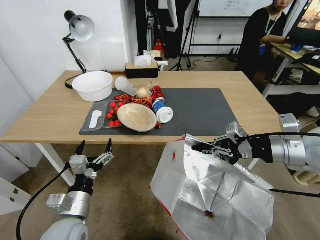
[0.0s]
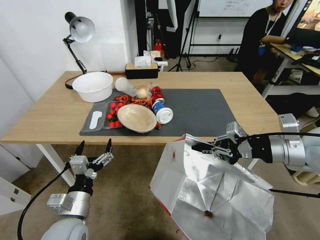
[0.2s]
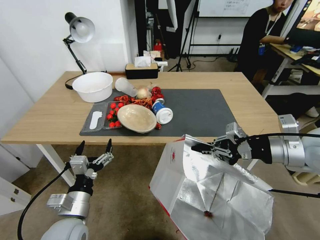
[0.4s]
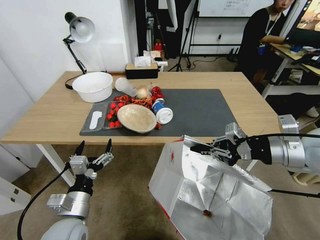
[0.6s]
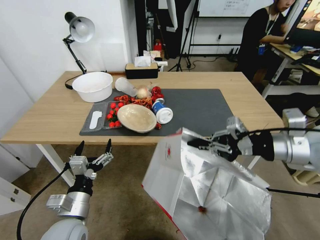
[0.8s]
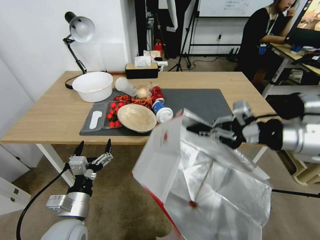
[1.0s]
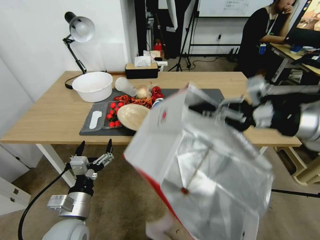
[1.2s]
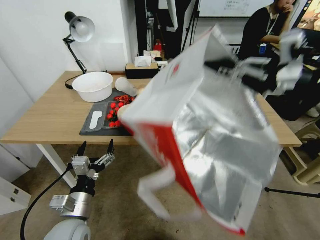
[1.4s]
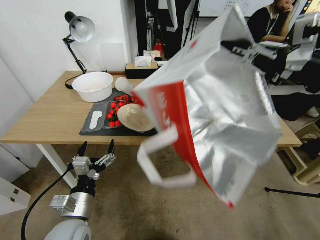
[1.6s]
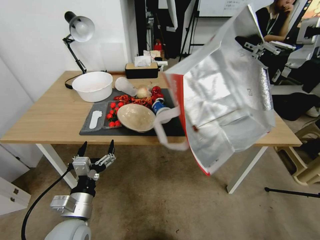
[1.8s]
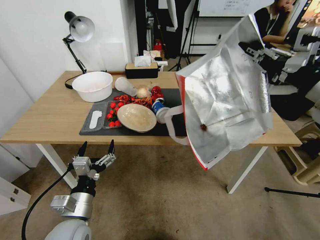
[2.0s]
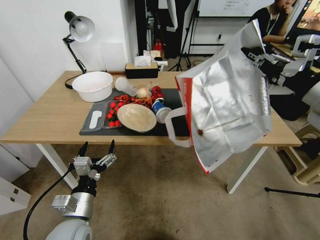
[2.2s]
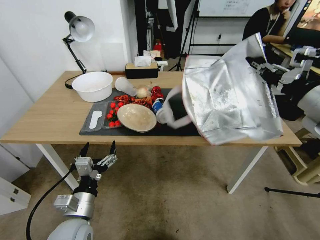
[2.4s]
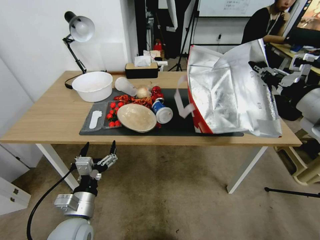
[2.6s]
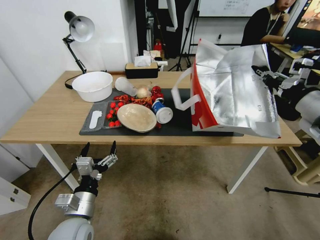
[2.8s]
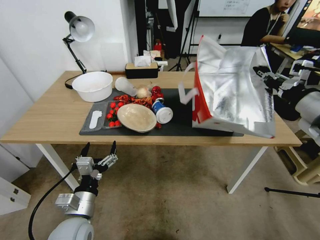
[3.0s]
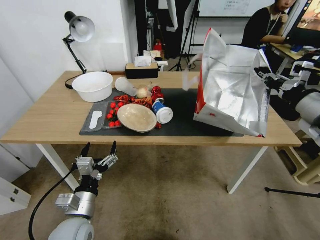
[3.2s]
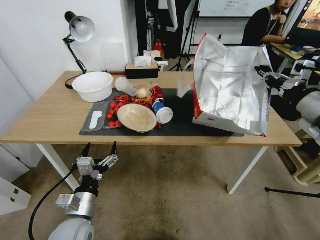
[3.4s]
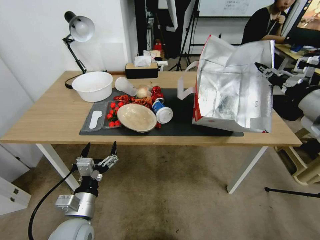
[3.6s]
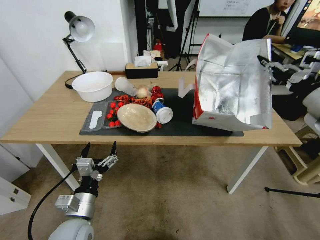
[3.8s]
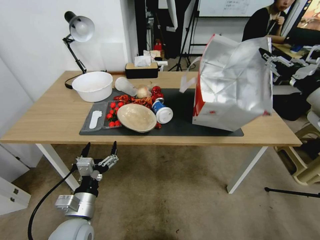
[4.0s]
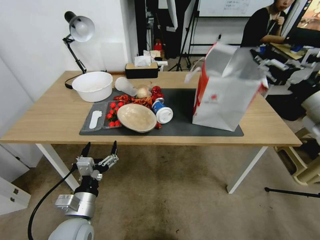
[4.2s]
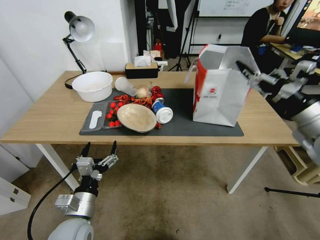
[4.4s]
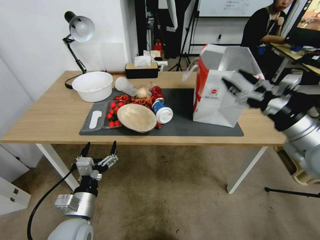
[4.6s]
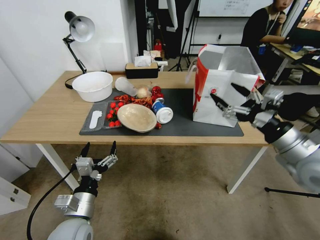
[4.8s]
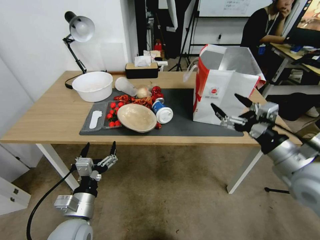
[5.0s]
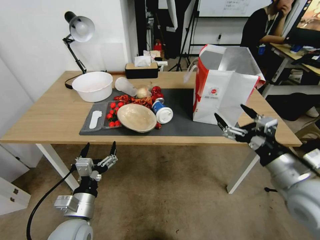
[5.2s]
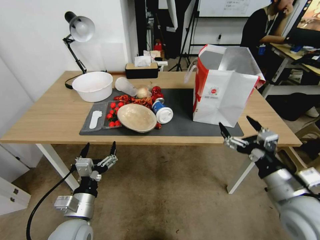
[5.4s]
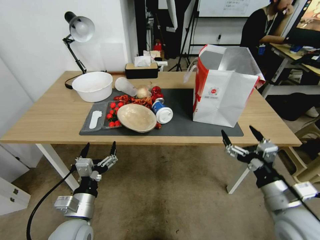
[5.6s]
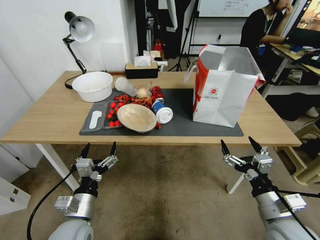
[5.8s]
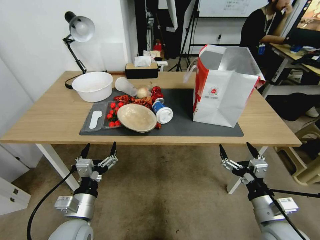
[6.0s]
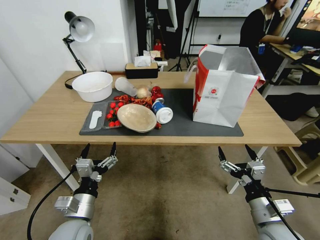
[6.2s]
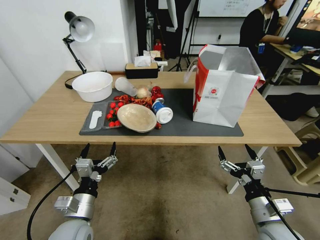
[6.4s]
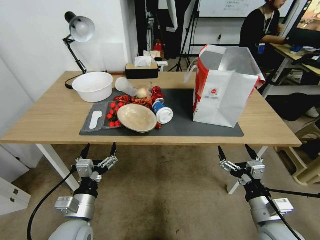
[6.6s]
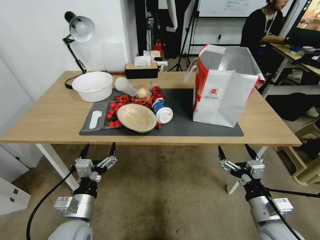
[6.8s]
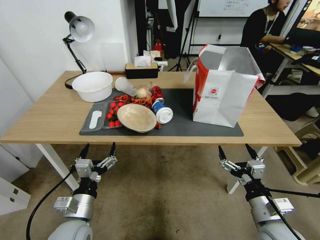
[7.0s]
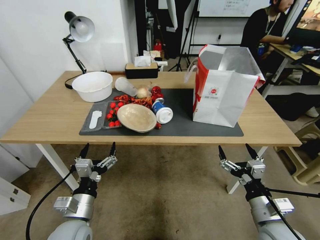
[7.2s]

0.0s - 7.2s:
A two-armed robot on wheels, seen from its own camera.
Task of the whole recording: Pick up the food delivery bag from the floor and place it on the table.
0.0s - 1.4s: The right gripper shifts some 15 cm upward.
1.4s - 2.8s: The right gripper is displaced downward by roughly 10 cm.
2.8s - 4.4s: The right gripper opens its fingers.
4.4s - 5.8s: The right gripper is displaced downward, backward and to the left by some 20 cm.
5.8s - 7.2s: The right gripper heads downward, covering roughly 10 cm.

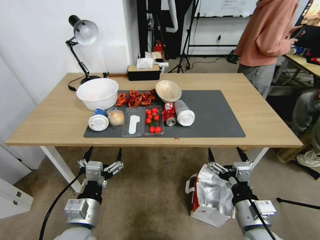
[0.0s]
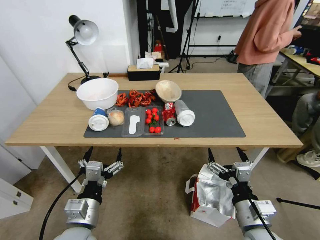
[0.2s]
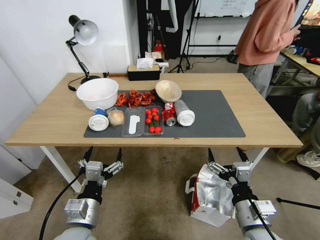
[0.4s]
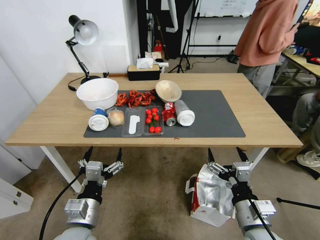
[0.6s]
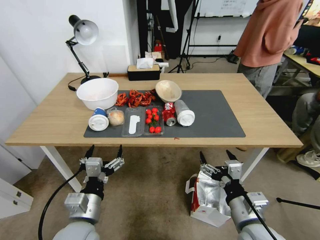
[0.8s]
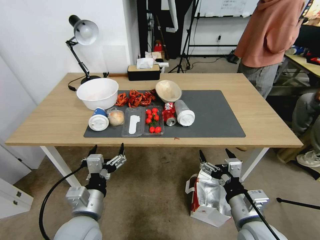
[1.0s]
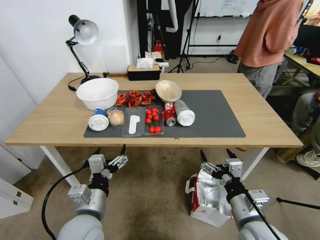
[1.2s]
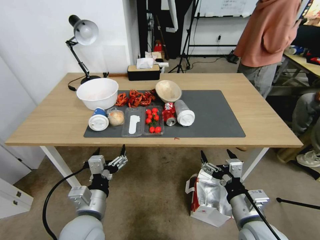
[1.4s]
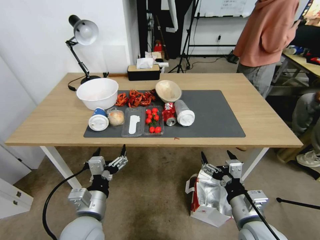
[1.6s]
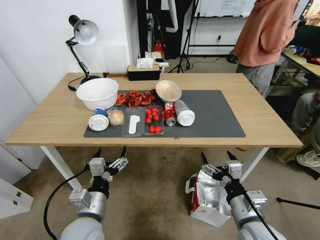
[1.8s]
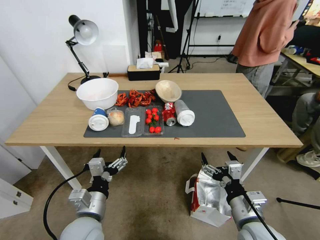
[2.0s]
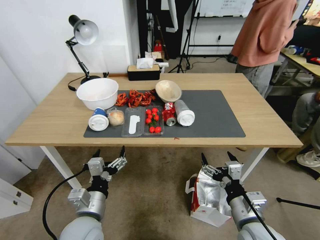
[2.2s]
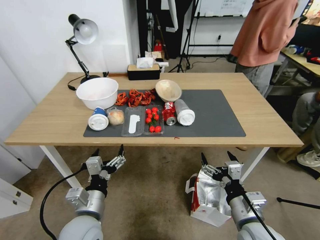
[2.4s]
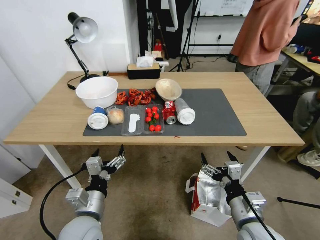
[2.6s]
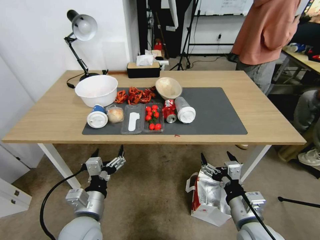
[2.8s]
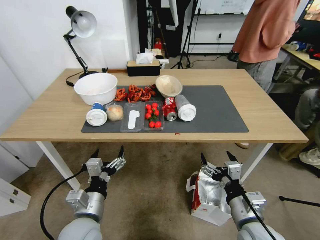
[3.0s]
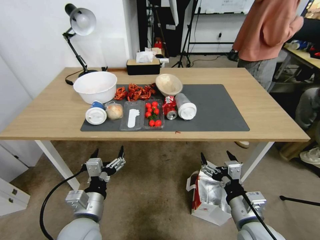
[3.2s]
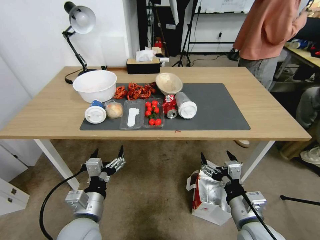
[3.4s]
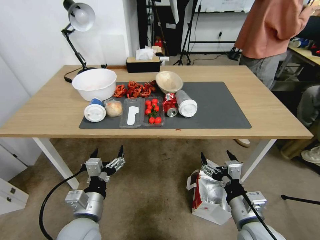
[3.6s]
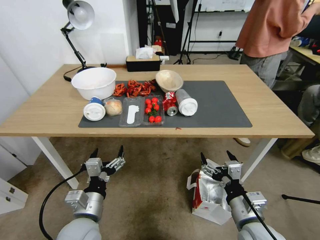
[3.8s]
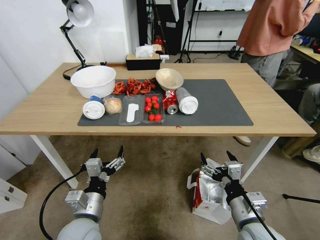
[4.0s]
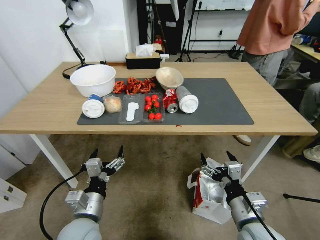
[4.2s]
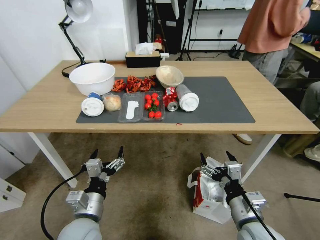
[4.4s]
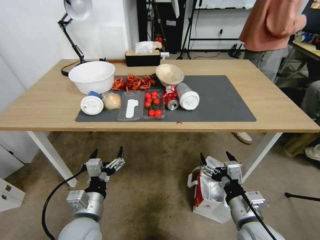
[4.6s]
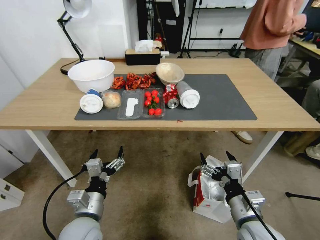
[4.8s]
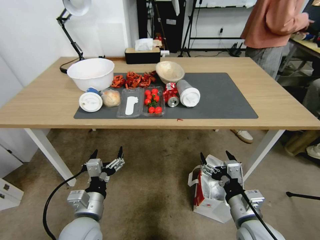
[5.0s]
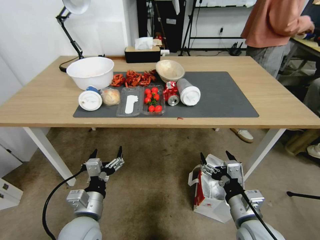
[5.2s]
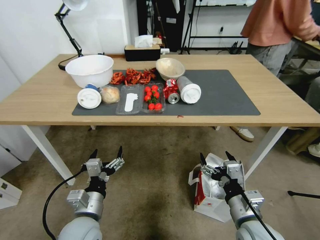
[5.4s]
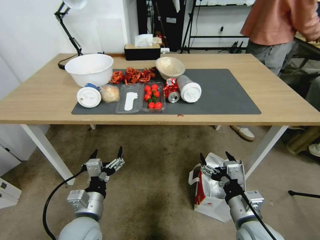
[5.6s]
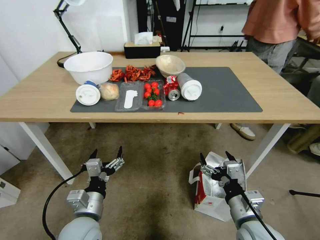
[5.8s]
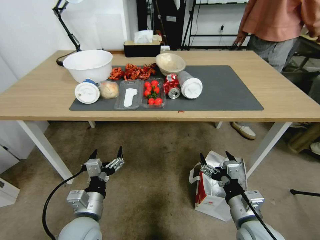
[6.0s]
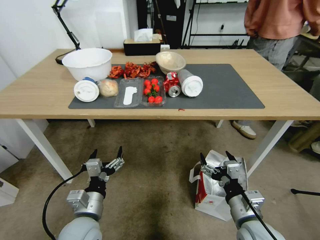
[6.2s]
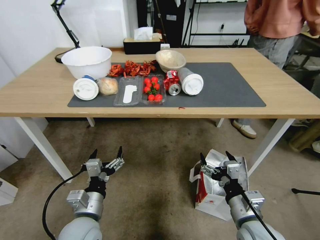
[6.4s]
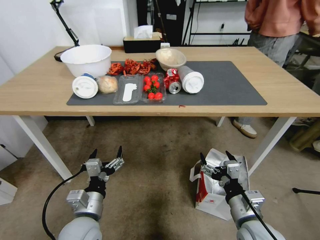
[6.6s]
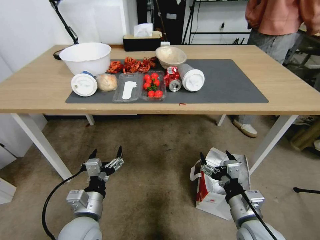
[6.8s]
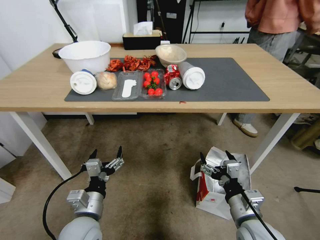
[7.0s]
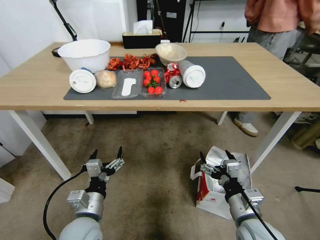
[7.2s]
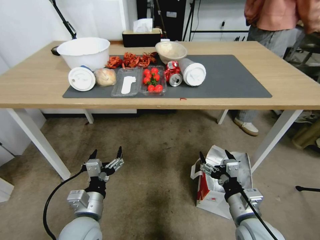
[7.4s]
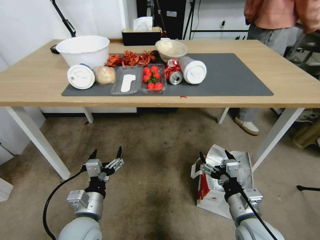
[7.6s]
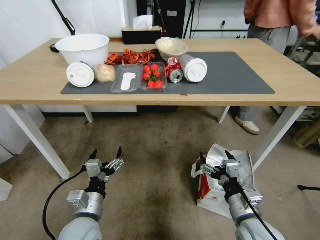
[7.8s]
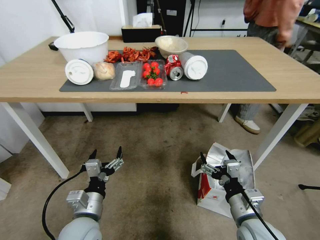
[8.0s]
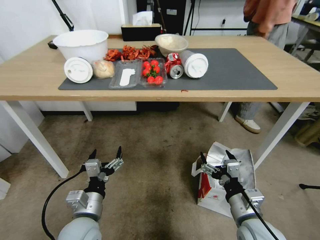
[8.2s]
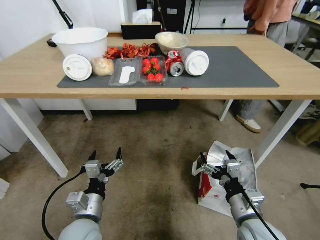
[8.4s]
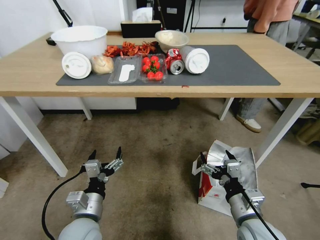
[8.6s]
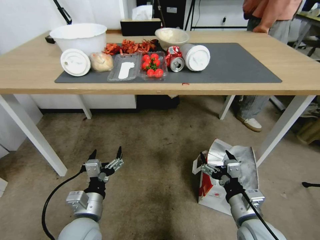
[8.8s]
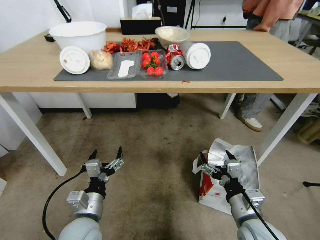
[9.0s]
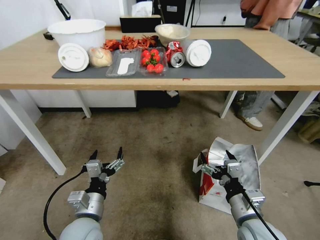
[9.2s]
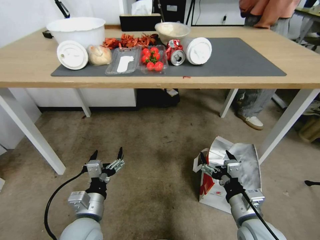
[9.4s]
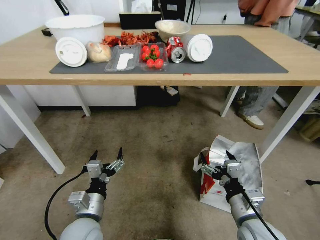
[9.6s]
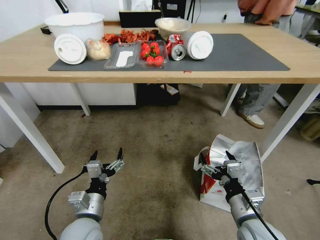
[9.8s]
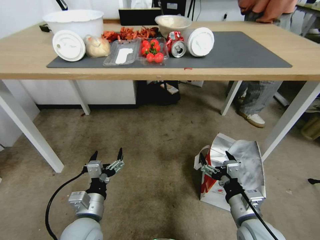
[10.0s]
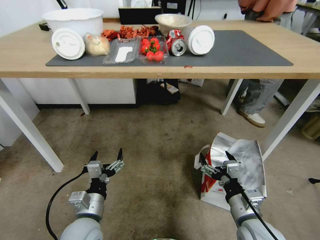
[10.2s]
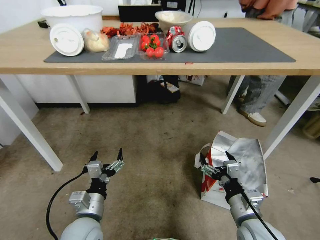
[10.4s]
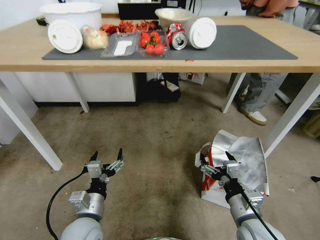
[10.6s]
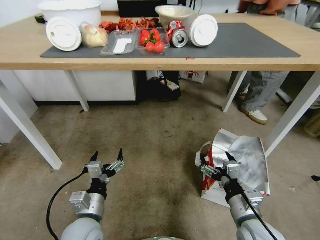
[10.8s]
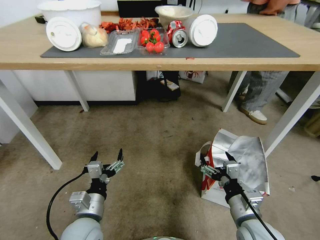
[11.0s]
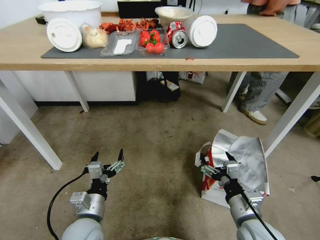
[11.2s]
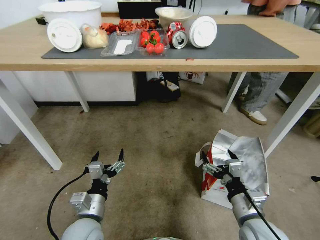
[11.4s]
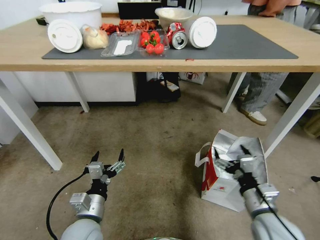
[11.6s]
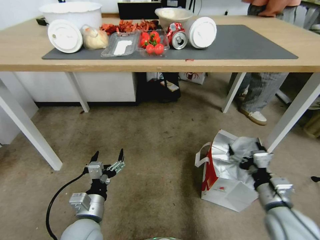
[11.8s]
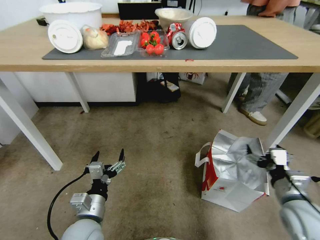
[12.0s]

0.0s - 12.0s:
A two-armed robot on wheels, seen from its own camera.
Task of the whole recording: Pick up the food delivery bag from the floor and place it on the table.
10.4s - 12.0s: The right gripper travels to the right by about 10 cm.

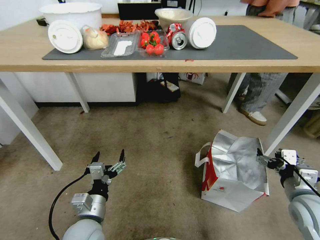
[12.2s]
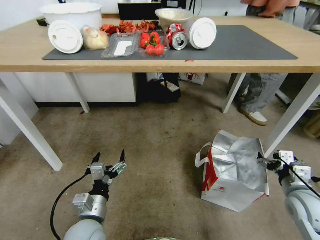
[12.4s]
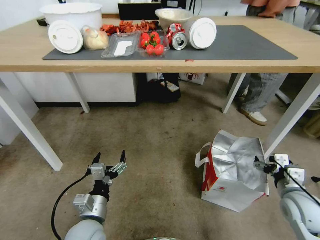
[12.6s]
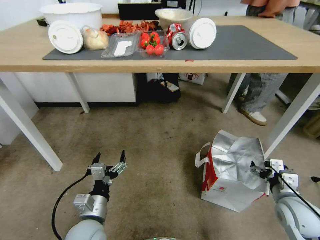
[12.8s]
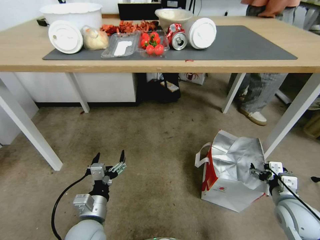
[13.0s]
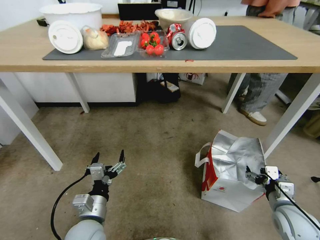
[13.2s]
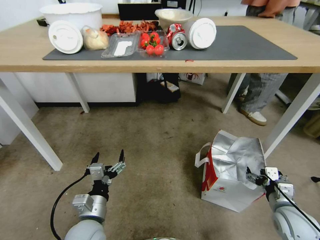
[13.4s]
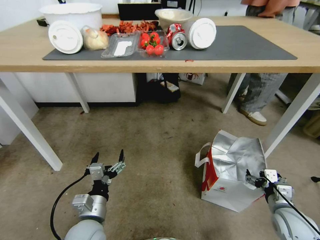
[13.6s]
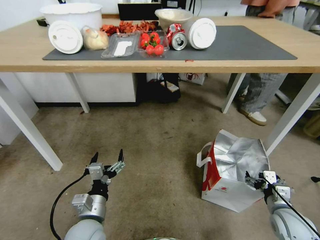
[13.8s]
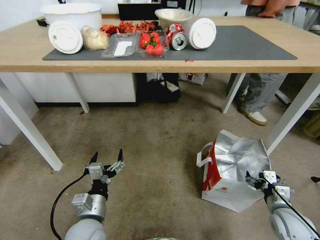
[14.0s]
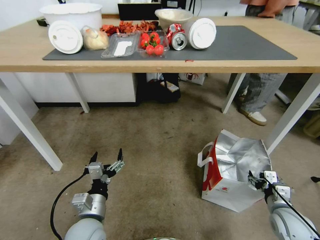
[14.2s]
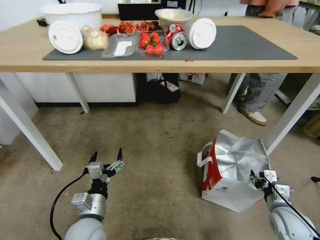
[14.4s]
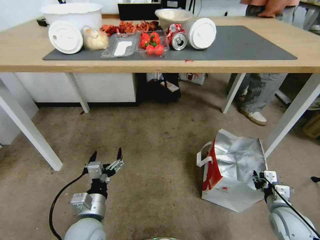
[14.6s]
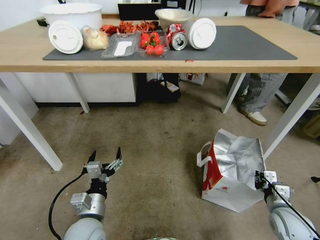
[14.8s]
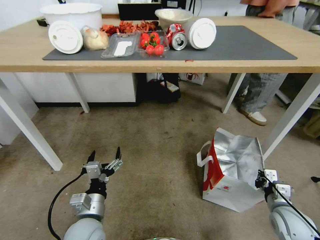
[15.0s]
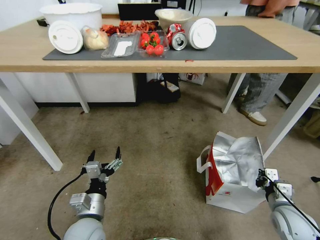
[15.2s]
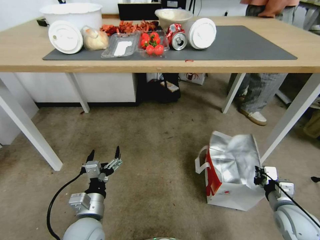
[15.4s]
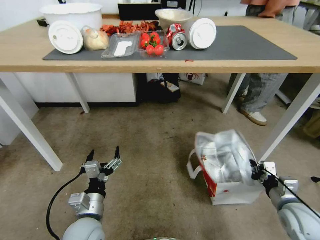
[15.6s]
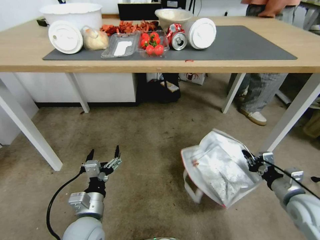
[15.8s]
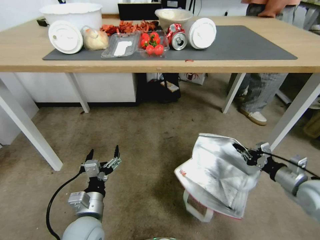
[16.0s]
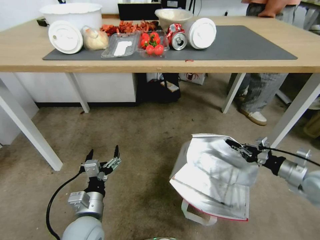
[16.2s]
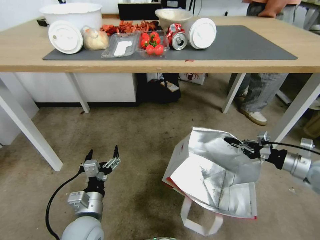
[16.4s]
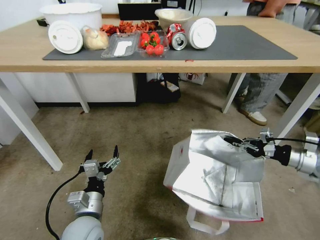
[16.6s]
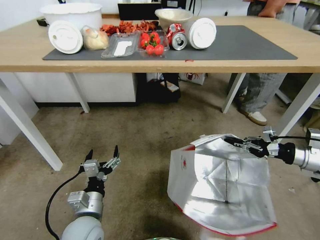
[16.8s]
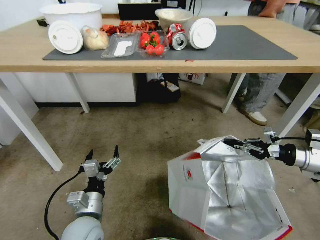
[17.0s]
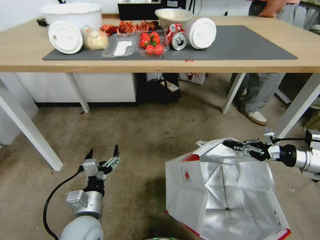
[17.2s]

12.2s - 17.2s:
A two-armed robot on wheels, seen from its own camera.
Task of the whole recording: Pick up the food delivery bag from the floor and place it on the table.
12.2s - 13.8s: The right gripper shifts some 10 cm downward.
13.8s - 15.6s: The right gripper closes its fingers.
15.6s - 17.2s: The right gripper shifts roughly 20 cm upward, forward and to the right.
